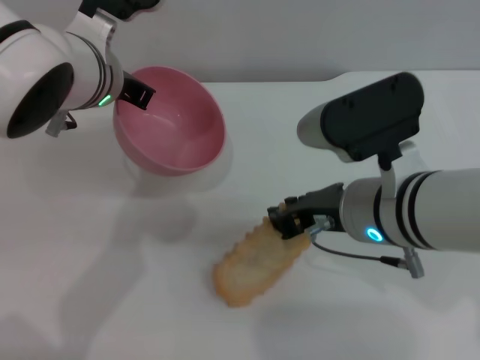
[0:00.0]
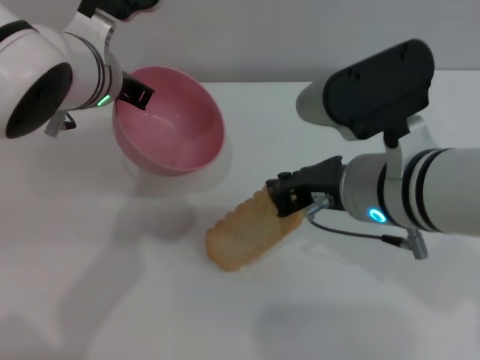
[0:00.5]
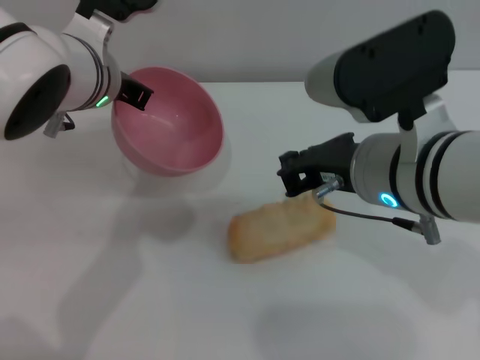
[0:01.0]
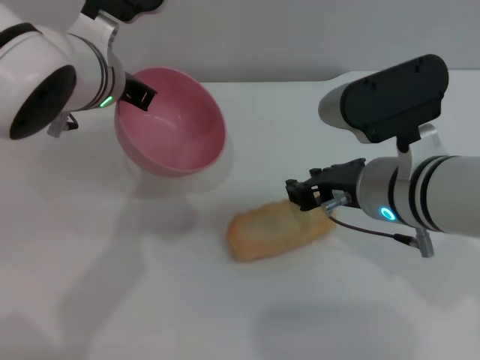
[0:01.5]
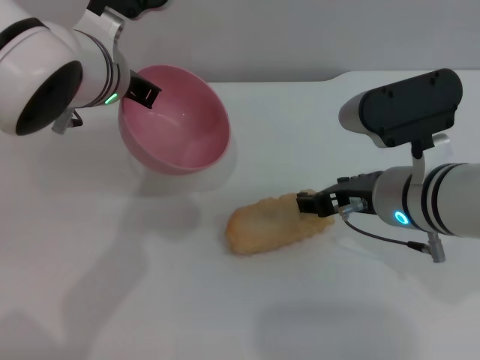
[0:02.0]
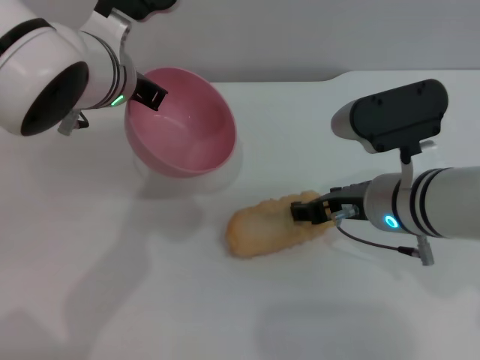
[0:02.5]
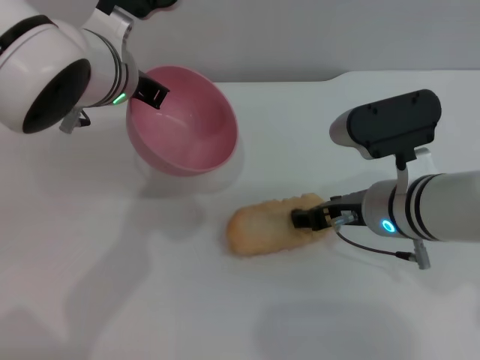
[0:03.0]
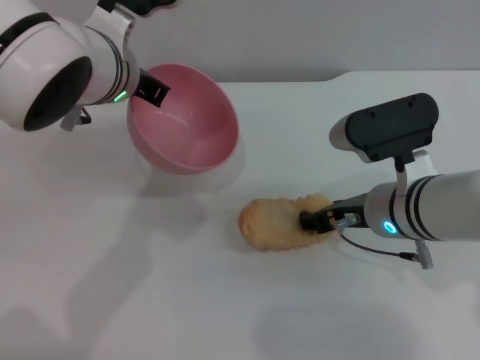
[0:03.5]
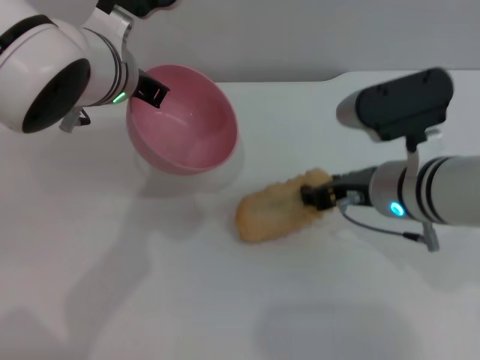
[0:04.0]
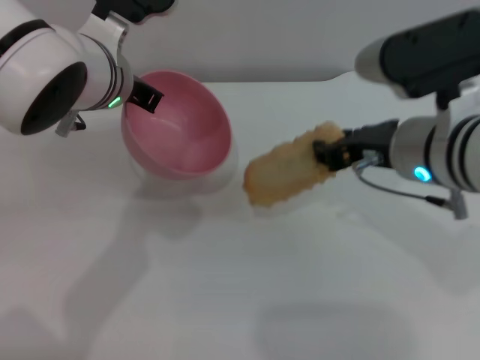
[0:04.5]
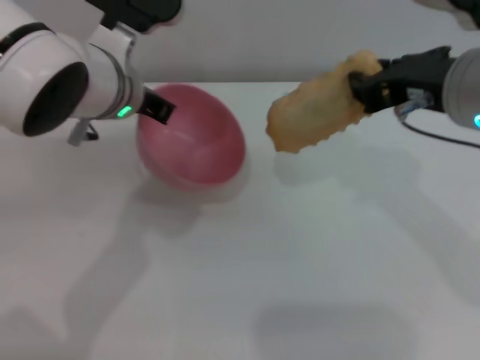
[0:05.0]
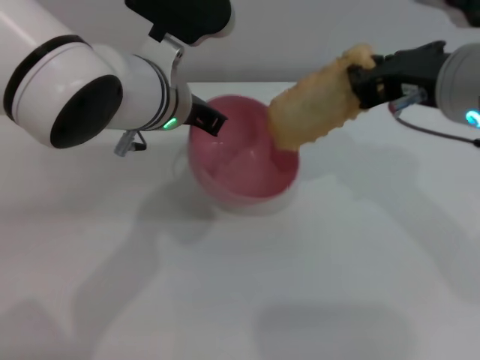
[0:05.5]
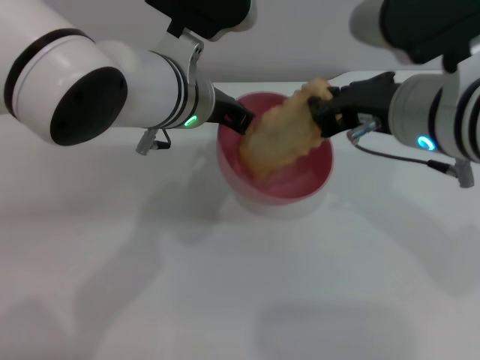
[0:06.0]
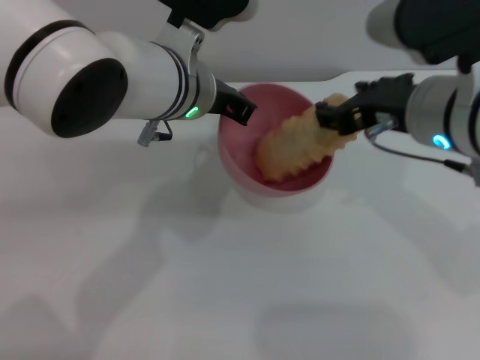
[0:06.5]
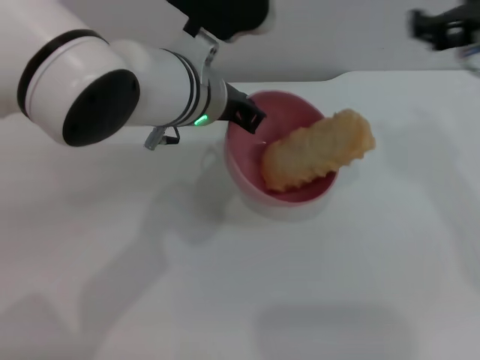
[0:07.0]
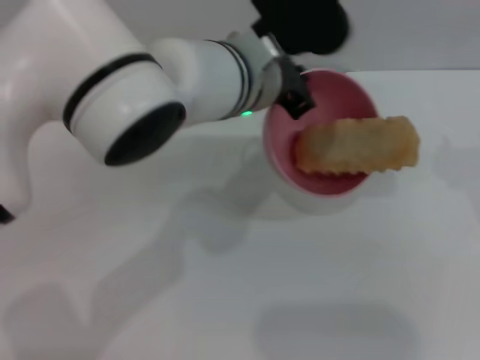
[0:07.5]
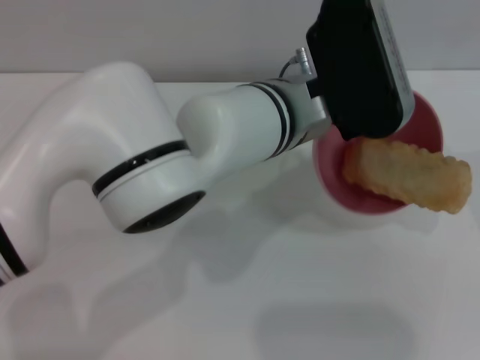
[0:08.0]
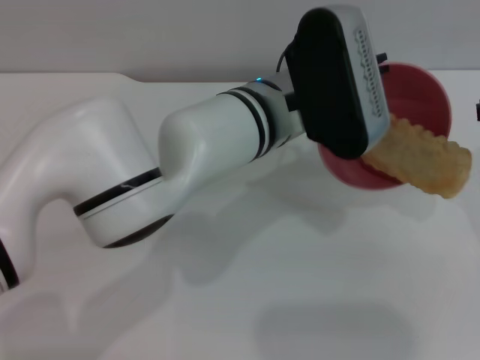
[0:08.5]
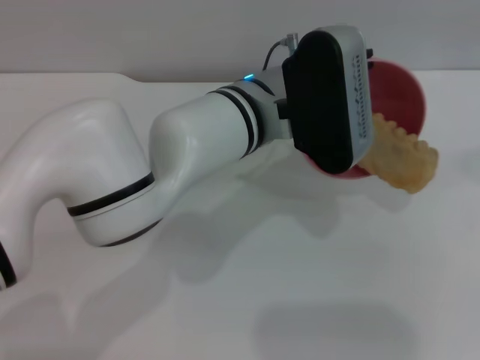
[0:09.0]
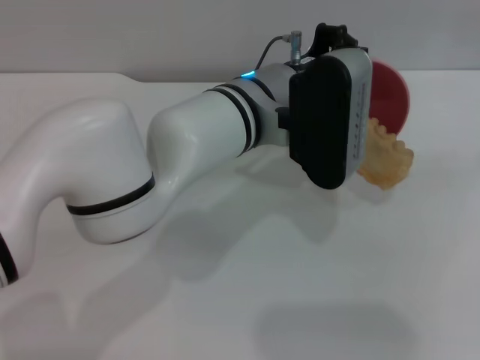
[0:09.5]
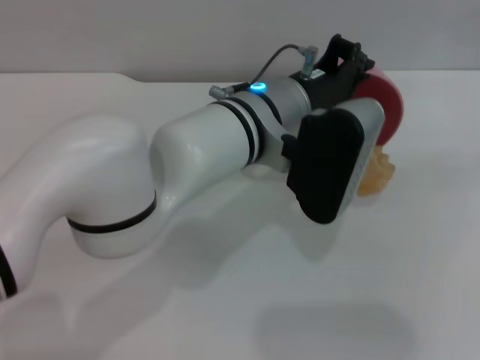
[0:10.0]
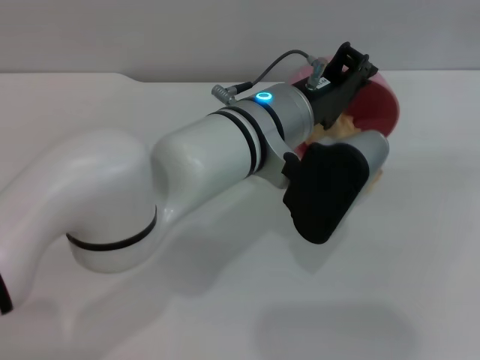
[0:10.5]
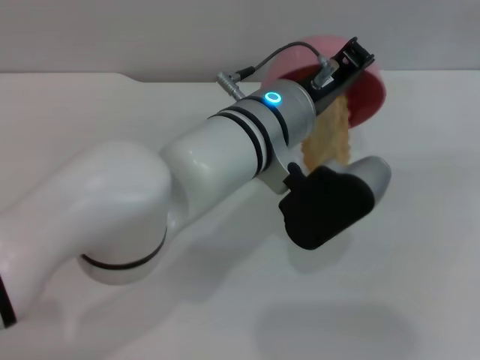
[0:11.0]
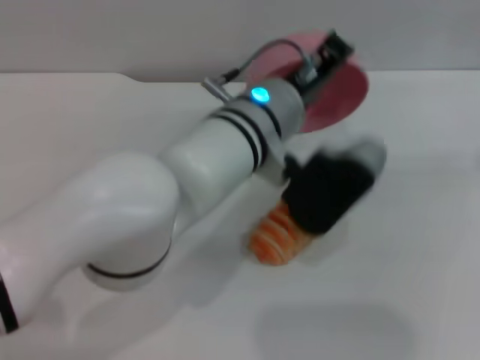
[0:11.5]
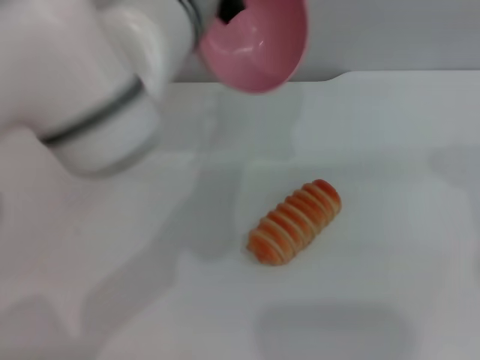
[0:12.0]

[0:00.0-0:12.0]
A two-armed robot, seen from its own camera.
Task of the whole recording: put the bread into the pink bowl and pour it out repeatedly.
Step, 0:00.0 to 0:04.5: Pick up the bread with the right gripper.
Step, 0:05.0 to 0:07.0: Place the bread into the bowl.
Step, 0:07.5 to 0:11.5: Pour the bread out of the bowl.
0:00.0 to 0:02.0: The right gripper opens up.
0:02.0 to 0:04.0: There are only small adjustments of the grippers.
0:04.0 to 0:06.0: The left gripper travels to the right by approximately 5 cm, while the right gripper goes roughly 10 cm upward, and closes up.
0:06.0 to 0:08.0: The two grippers go some 10 cm to the right. The right gripper opens.
0:08.0 to 0:10.0: The right gripper moves approximately 5 cm.
0:10.0 to 0:12.0: The right gripper goes some 5 cm to the left, while the left gripper is displaced upward and to the left by some 10 cm.

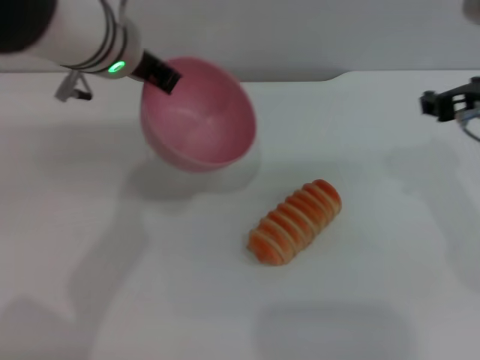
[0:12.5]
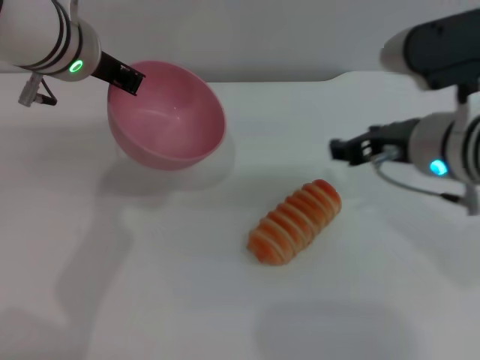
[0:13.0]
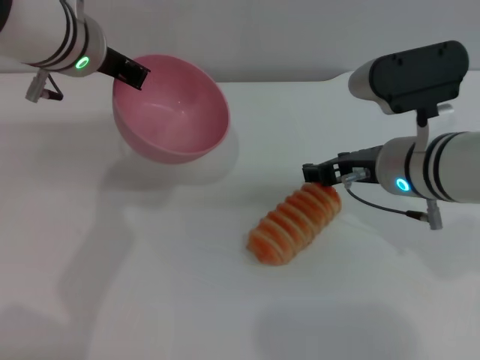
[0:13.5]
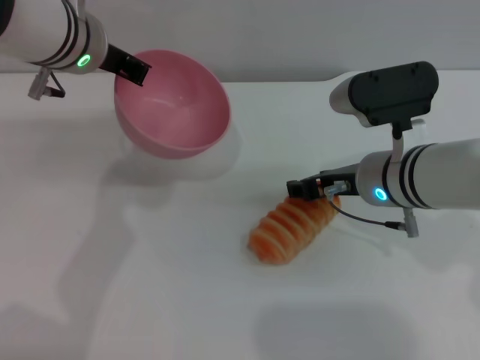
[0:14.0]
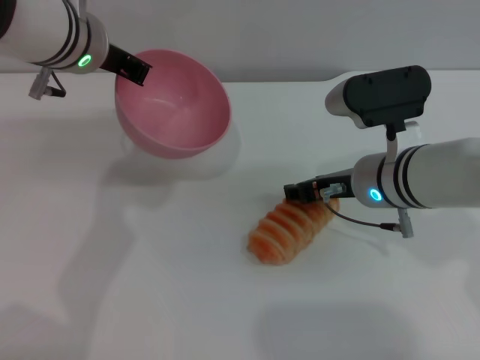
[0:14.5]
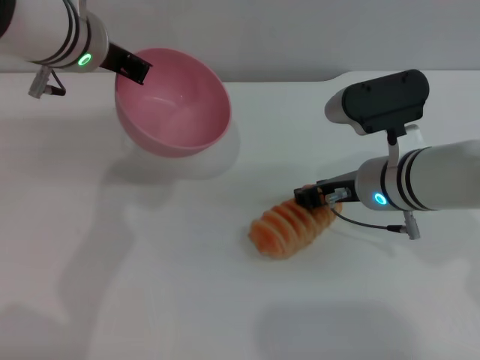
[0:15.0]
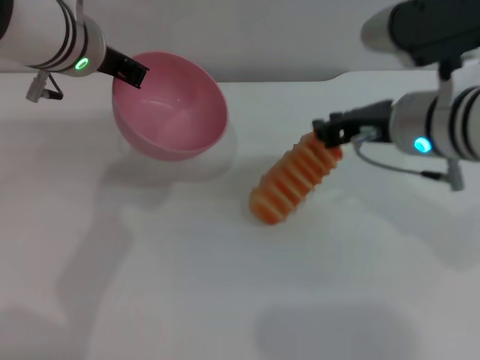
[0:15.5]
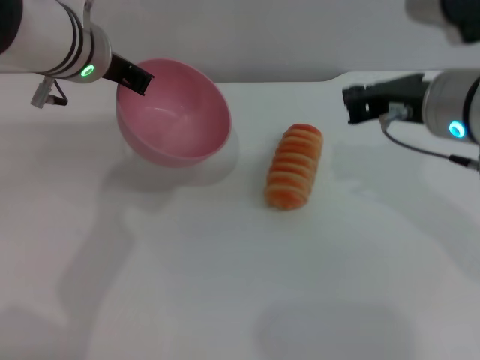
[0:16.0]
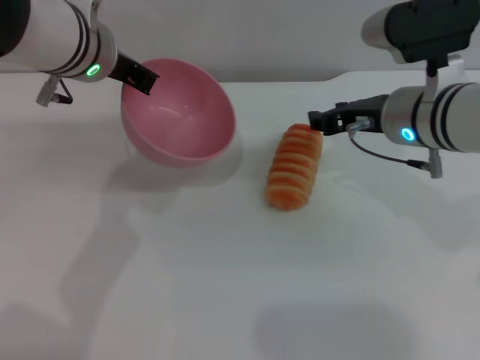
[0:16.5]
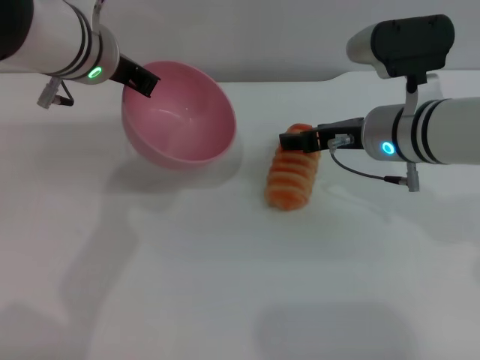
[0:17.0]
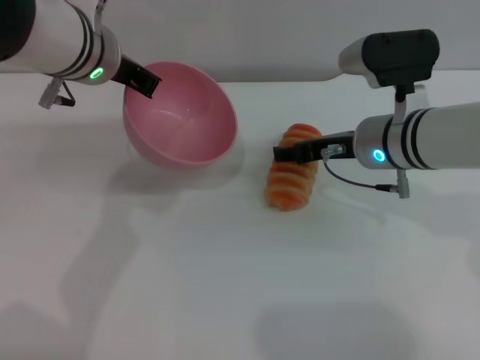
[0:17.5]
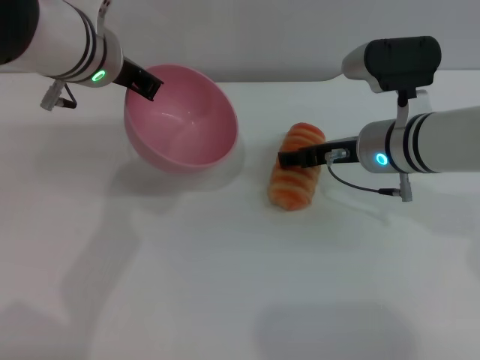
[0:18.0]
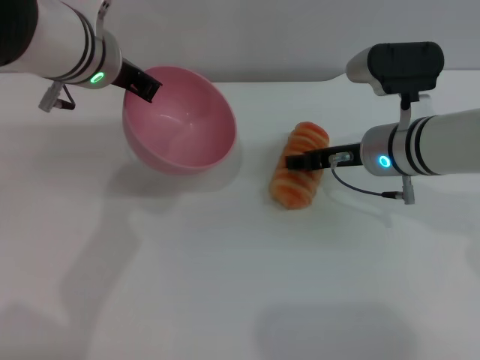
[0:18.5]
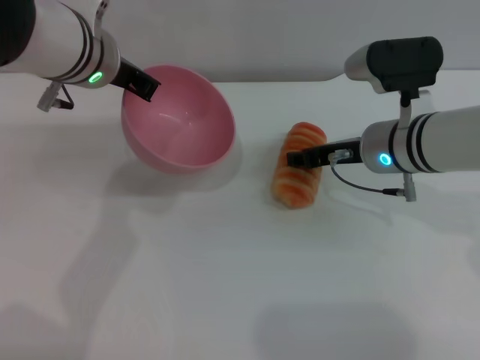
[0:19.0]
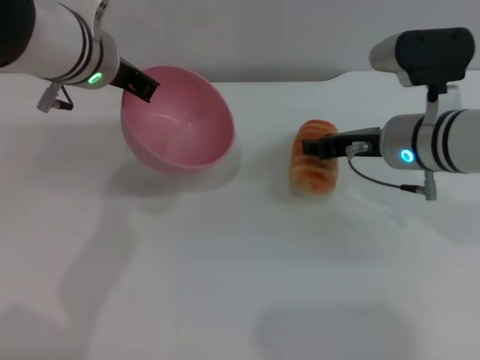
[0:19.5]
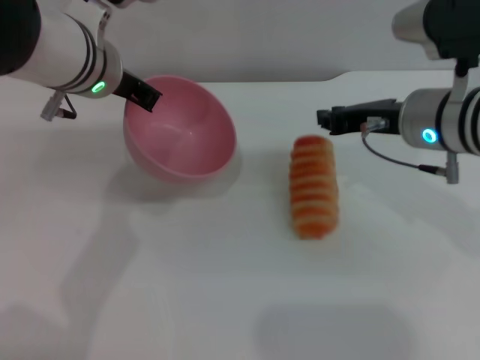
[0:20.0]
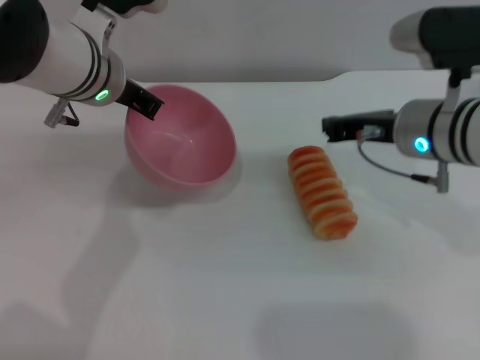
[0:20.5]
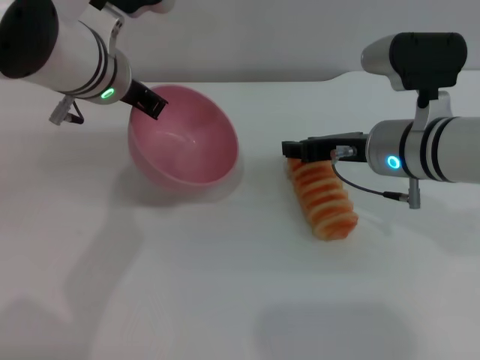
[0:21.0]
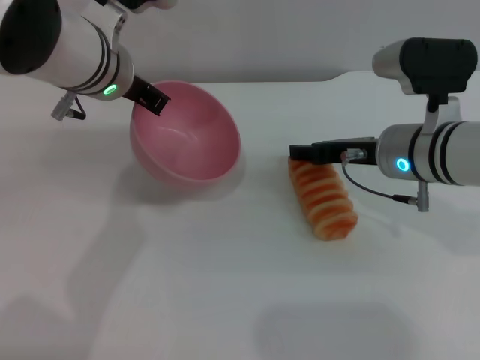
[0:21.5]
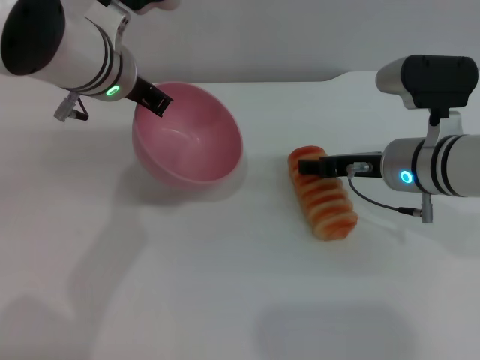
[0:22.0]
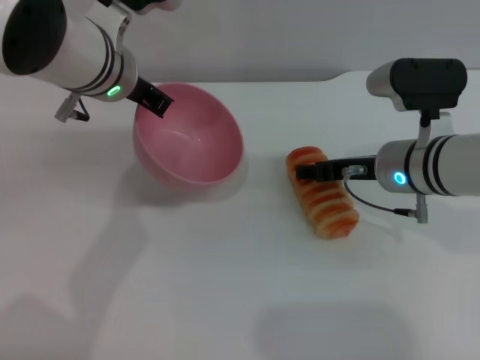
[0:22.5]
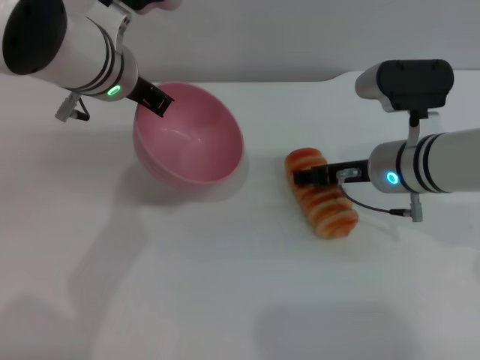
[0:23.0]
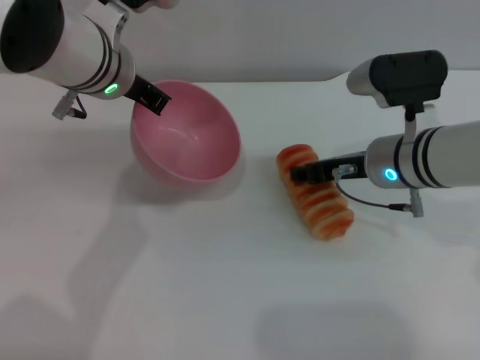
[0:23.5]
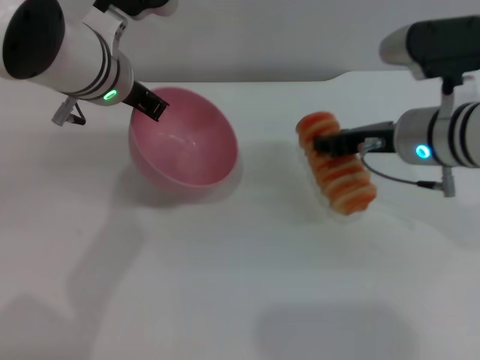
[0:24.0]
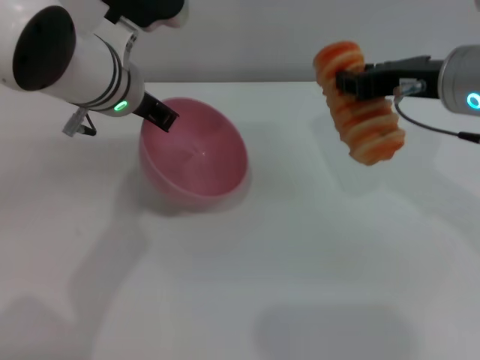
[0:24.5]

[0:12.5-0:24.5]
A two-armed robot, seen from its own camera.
Task of the whole recording: put the bread into the pink bowl and pour it out repeatedly.
Step, 0:12.5 to 0:24.5: Pick up the bread with the right gripper.
0:12.5 to 0:14.5: The right gripper moves downward and to the left, roughly 15 cm.
0:14.5 to 0:16.5: The right gripper moves upward, approximately 5 cm, and closes and opens again.
0:16.5 to 0:18.5: The right gripper moves downward, about 5 cm, and opens its fingers.
0:18.5 to 0:20.5: The right gripper goes some 5 cm upward, and closes up.
0:20.5 to 0:22.5: The right gripper is displaced downward by about 5 cm, and opens its fingers.
0:22.5 to 0:24.5: The right gripper goes some 15 cm upward, and closes its fingers.

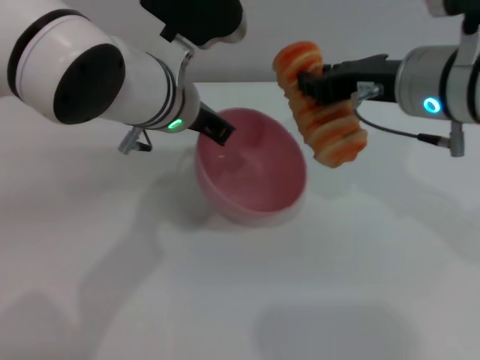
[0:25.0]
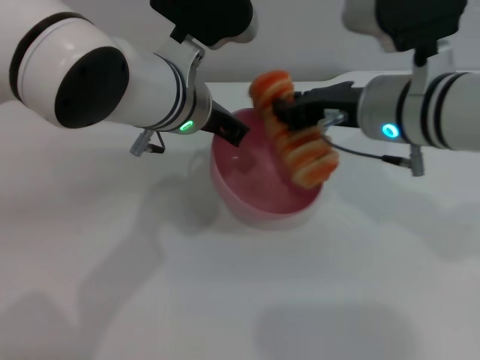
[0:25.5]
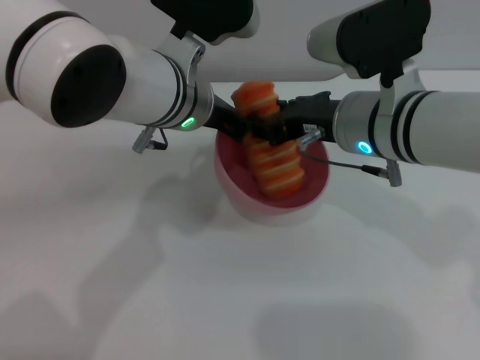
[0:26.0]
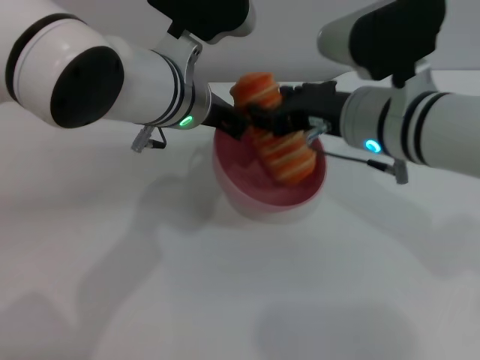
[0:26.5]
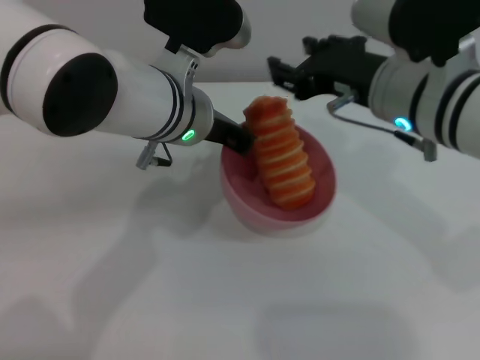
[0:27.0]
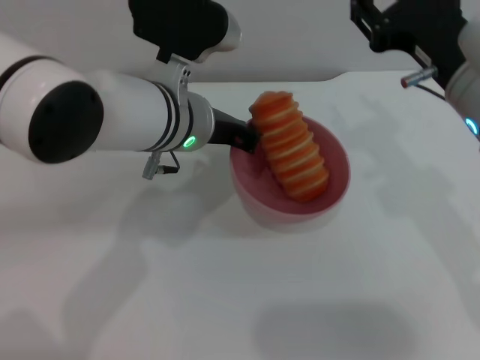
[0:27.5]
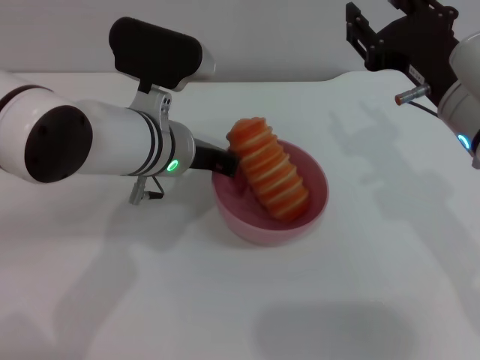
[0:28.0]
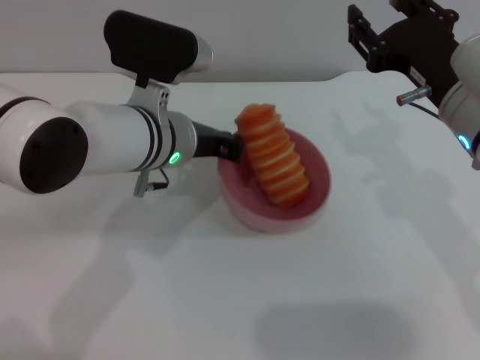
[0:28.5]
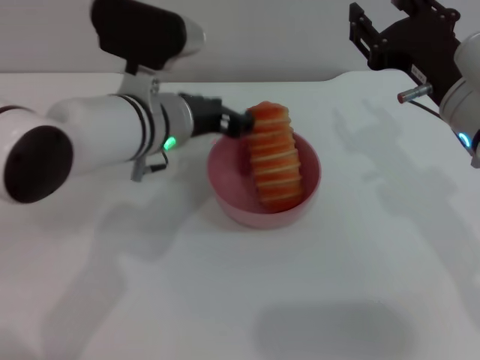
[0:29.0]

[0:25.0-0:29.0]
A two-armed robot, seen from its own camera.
Task of the whole recording: put the bread into the pink bowl and pour it out repeatedly.
Step, 0:25.0 to 0:27.0: Place the bread into the bowl.
0:25.0 to 0:27.0: The right gripper opens up.
0:27.0 to 0:29.0: The right gripper moves to the right, some 5 cm, while the left gripper opens its fingers.
